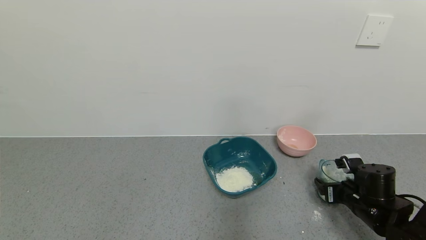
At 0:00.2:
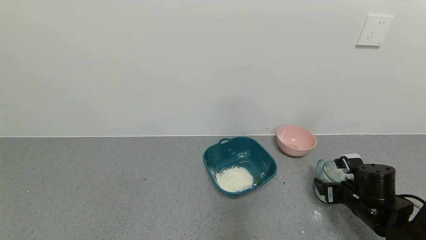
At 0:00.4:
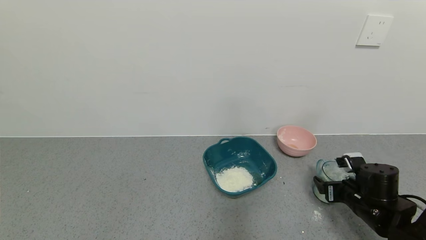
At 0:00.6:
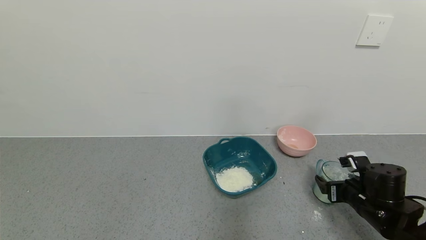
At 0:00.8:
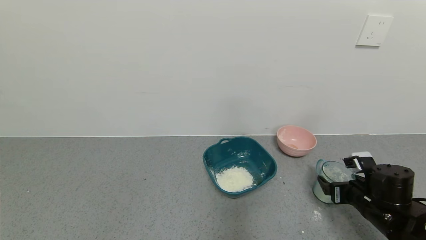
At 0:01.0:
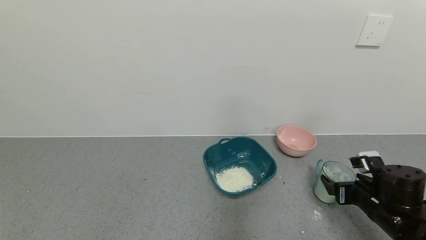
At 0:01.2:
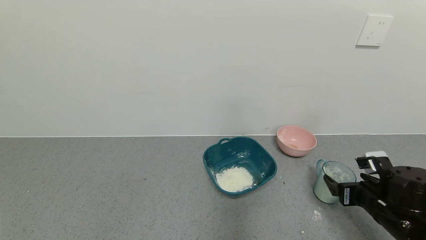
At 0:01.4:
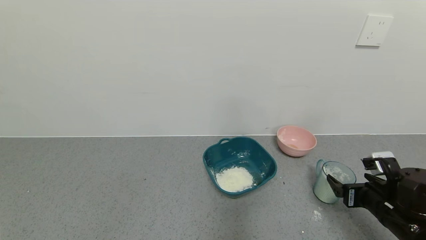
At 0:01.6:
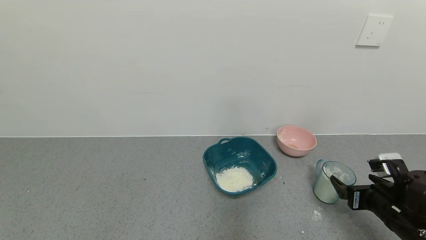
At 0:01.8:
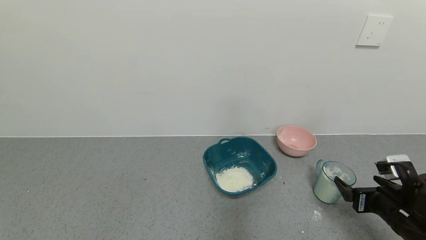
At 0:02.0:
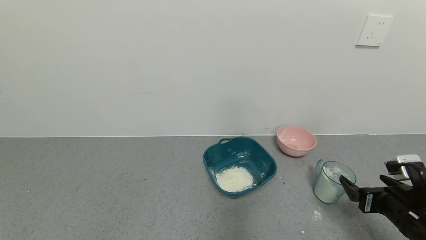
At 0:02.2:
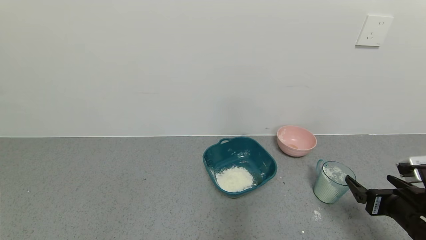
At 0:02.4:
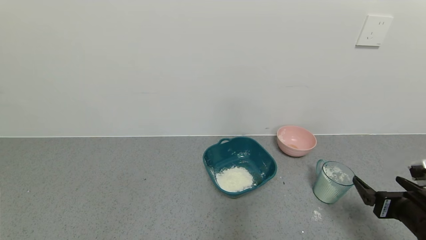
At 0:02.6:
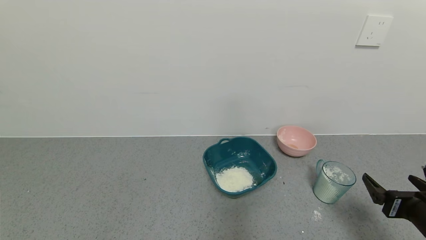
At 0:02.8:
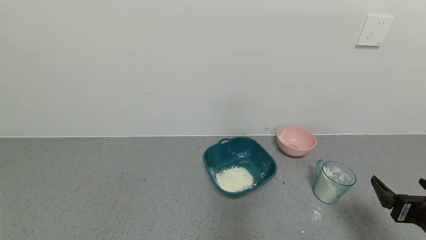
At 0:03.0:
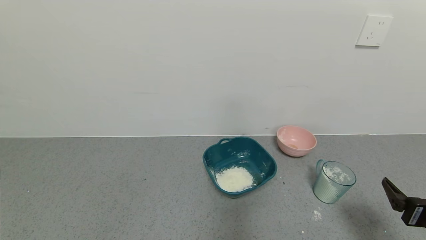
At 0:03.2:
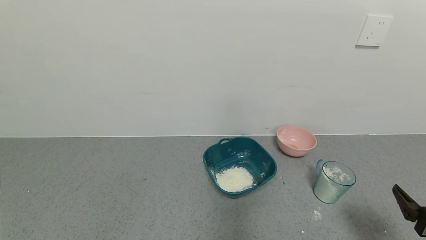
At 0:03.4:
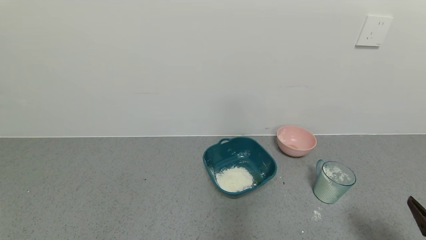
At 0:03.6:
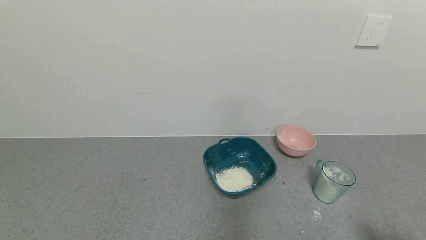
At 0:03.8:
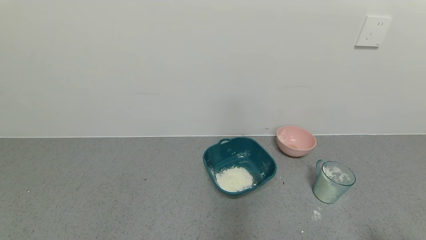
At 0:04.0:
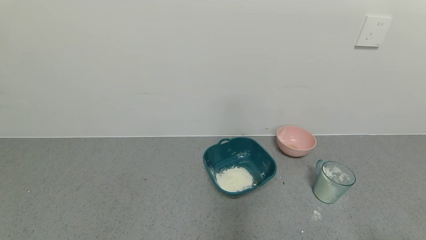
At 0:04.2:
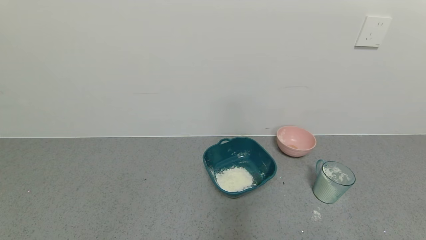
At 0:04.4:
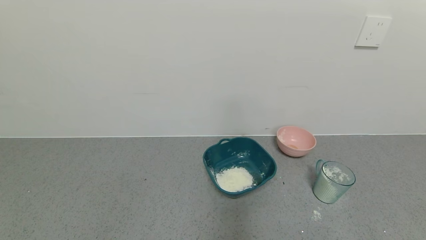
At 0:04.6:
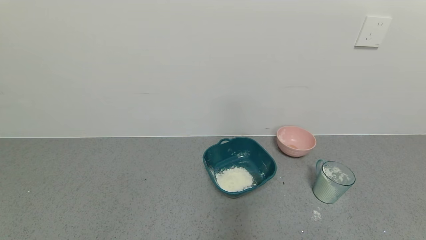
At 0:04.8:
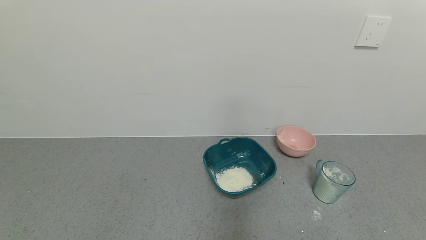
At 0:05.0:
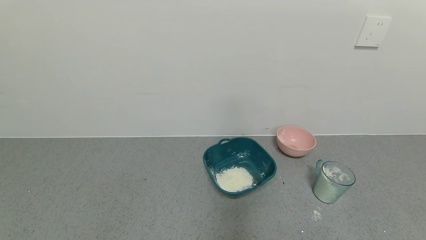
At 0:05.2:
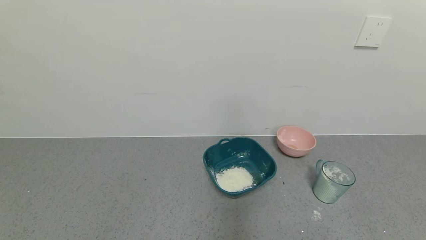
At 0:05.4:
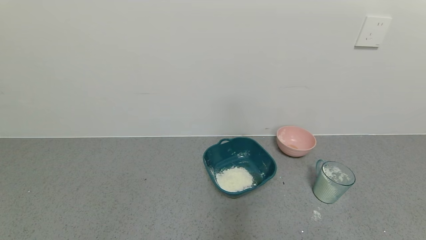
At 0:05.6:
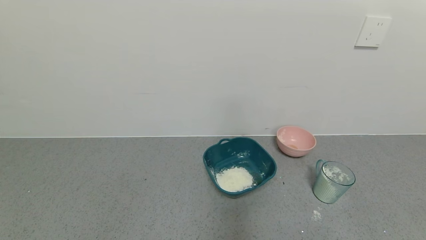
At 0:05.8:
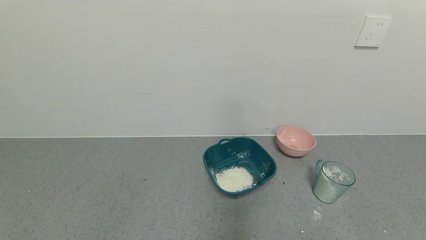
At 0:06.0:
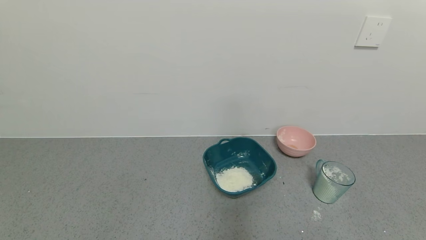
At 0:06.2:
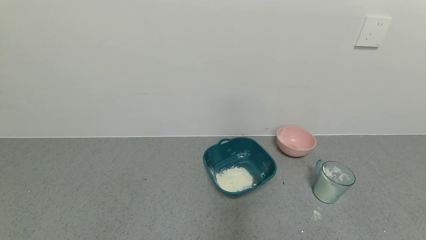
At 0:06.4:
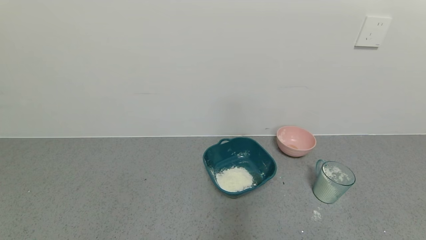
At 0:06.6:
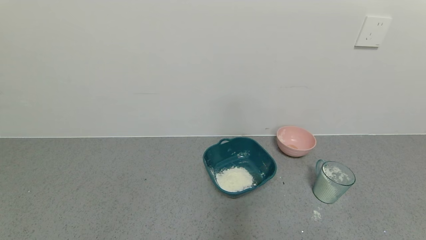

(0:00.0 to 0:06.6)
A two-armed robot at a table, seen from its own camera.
Task of the whole recording: use a gripper to pick up the cup and pour the powder into a bowl or tray.
0:00.0 - 0:01.6: The right gripper moves backward, approximately 5 cm, and opens up.
0:01.6 - 0:03.2: The right gripper travels backward by about 10 cm.
0:03.2 - 0:05.0: The right gripper moves backward, approximately 15 cm.
